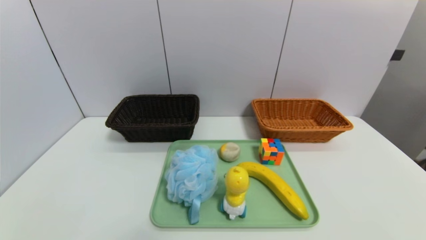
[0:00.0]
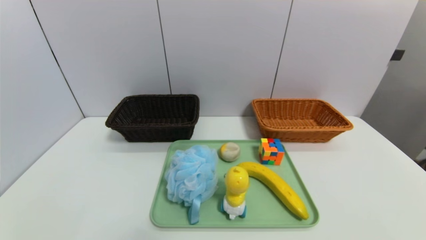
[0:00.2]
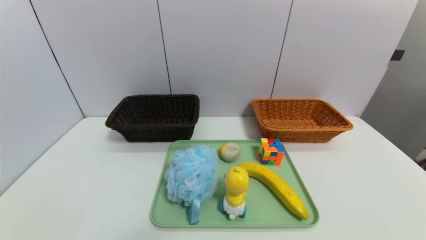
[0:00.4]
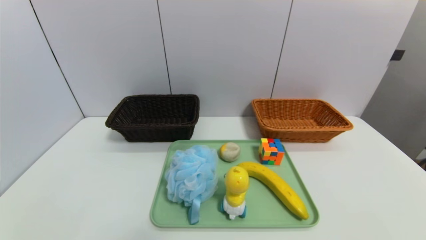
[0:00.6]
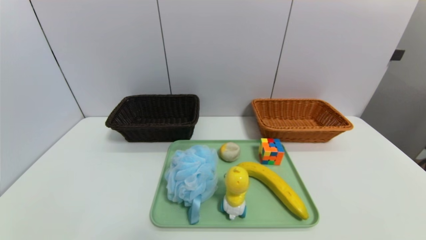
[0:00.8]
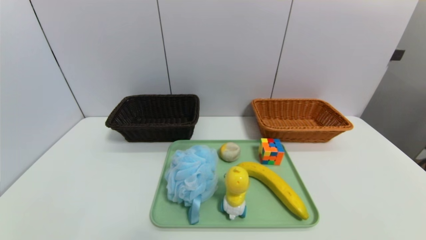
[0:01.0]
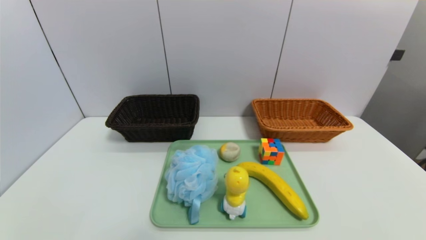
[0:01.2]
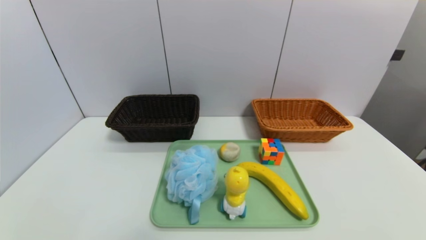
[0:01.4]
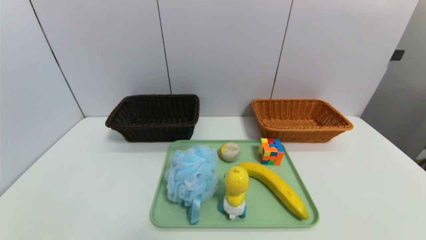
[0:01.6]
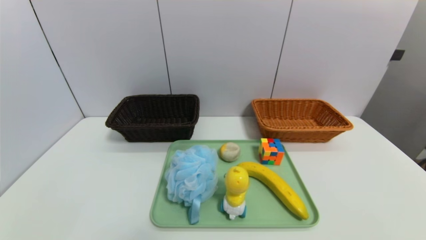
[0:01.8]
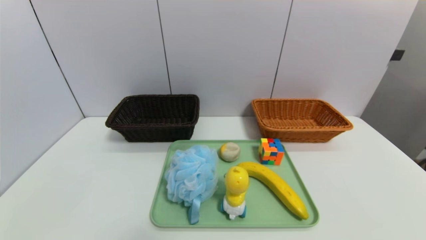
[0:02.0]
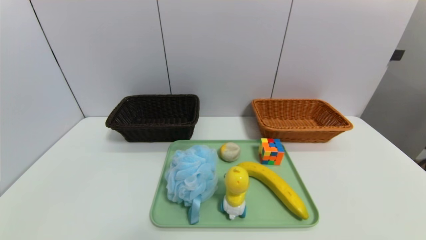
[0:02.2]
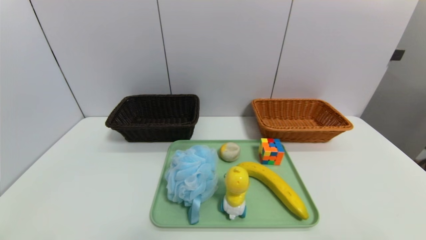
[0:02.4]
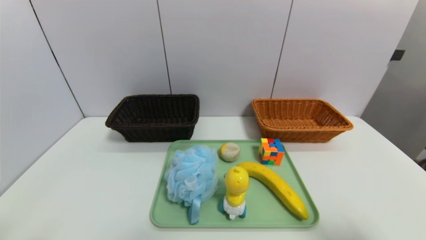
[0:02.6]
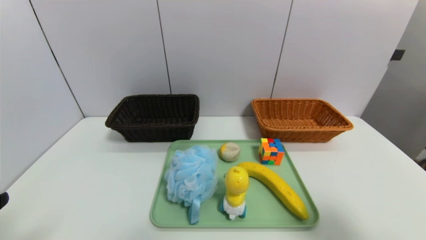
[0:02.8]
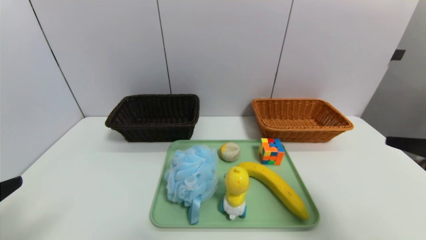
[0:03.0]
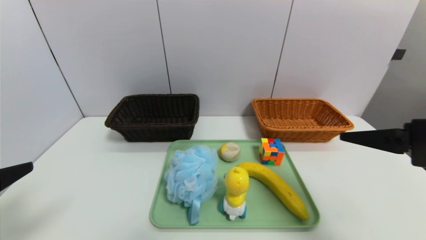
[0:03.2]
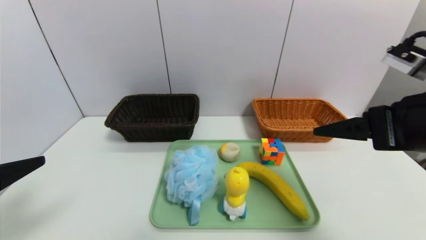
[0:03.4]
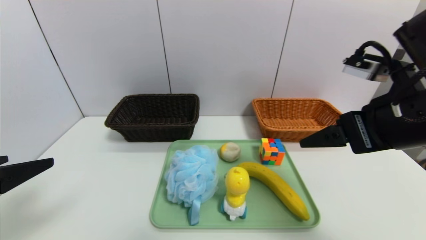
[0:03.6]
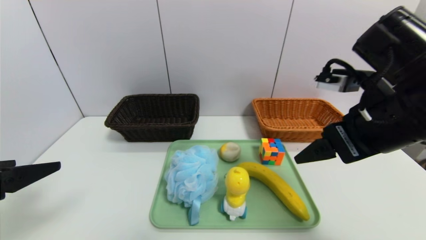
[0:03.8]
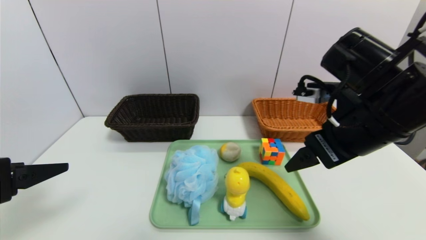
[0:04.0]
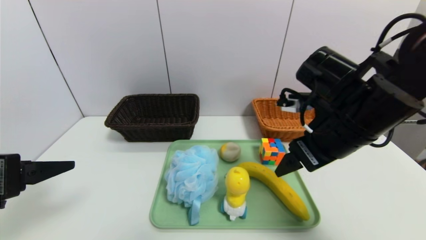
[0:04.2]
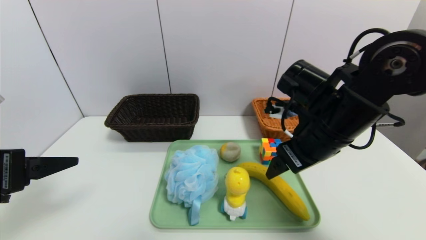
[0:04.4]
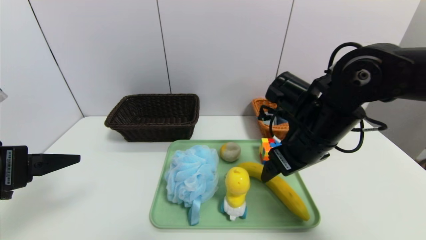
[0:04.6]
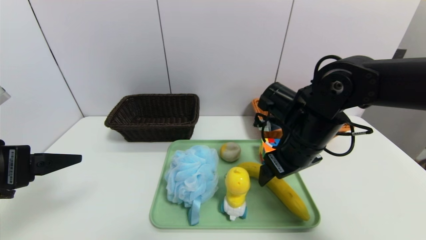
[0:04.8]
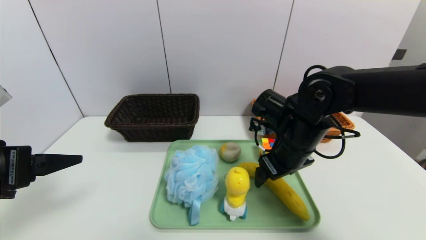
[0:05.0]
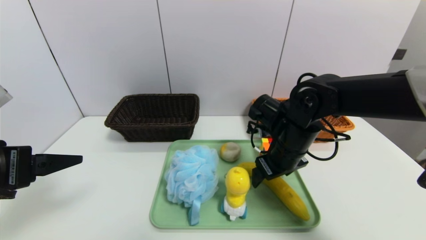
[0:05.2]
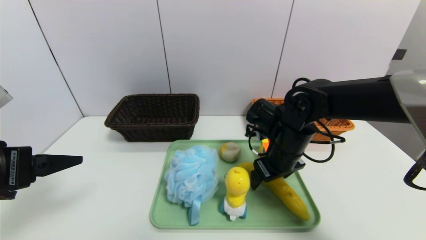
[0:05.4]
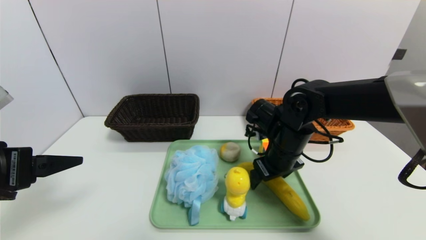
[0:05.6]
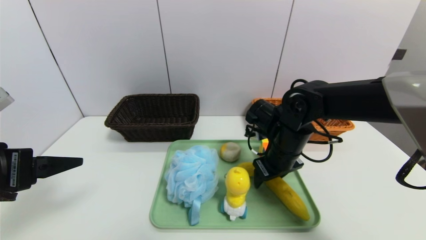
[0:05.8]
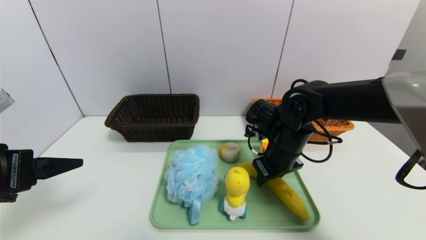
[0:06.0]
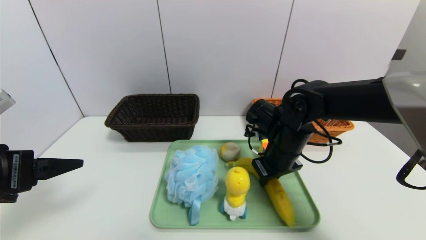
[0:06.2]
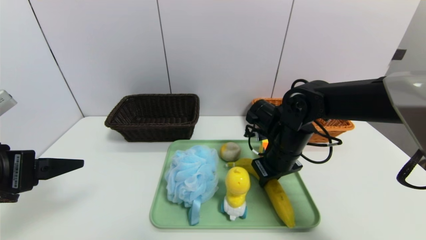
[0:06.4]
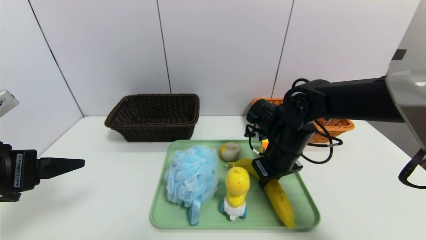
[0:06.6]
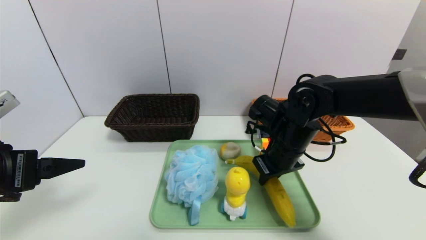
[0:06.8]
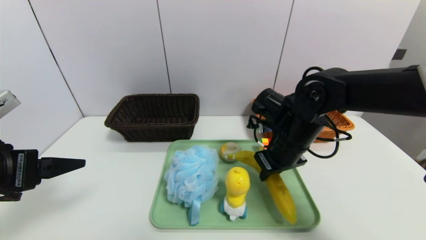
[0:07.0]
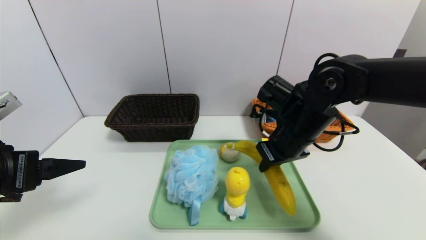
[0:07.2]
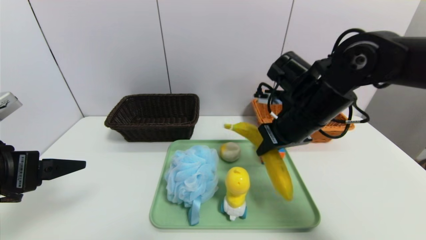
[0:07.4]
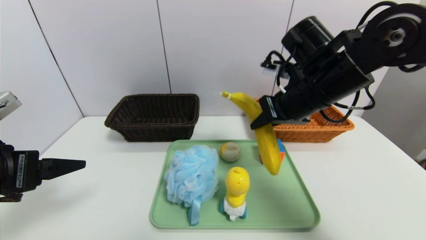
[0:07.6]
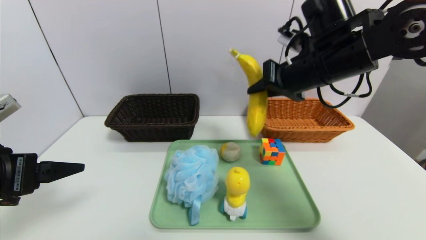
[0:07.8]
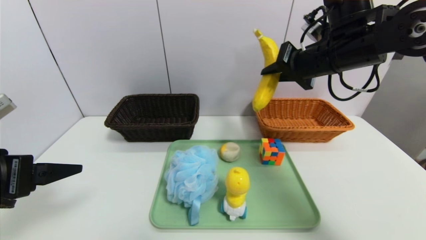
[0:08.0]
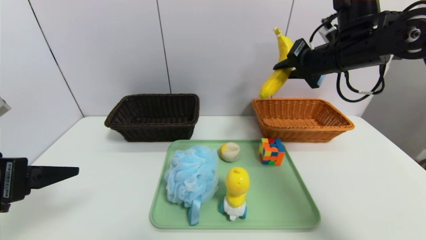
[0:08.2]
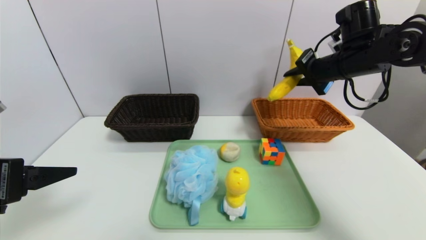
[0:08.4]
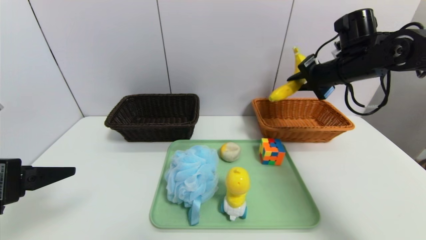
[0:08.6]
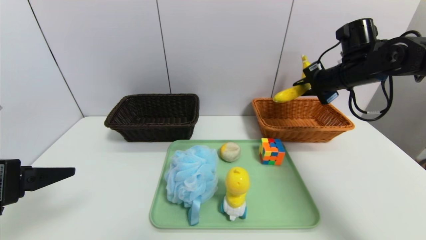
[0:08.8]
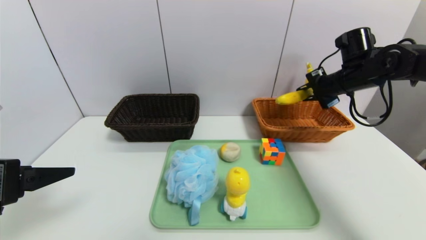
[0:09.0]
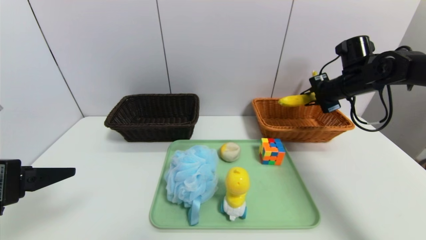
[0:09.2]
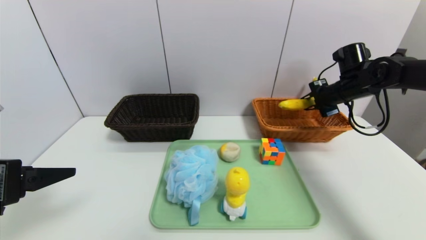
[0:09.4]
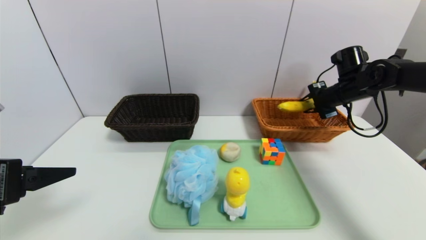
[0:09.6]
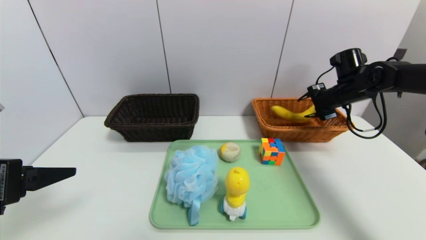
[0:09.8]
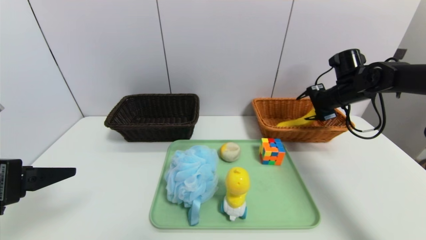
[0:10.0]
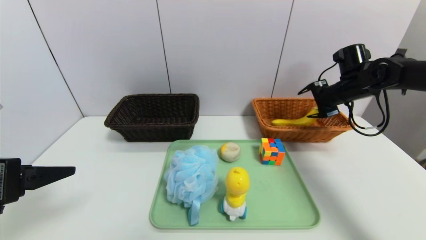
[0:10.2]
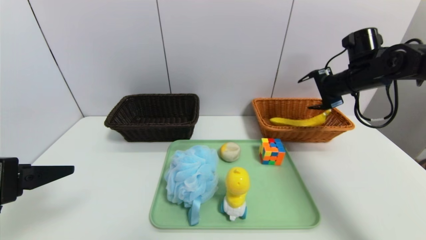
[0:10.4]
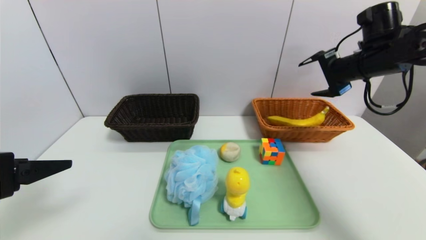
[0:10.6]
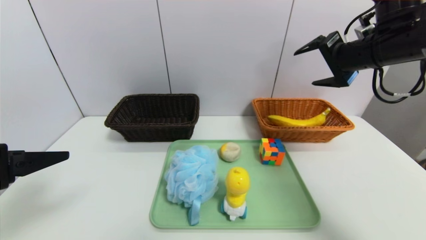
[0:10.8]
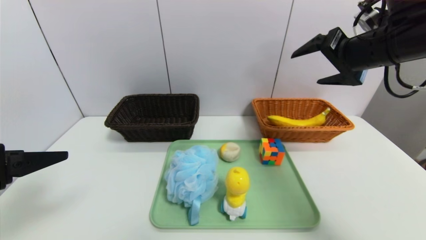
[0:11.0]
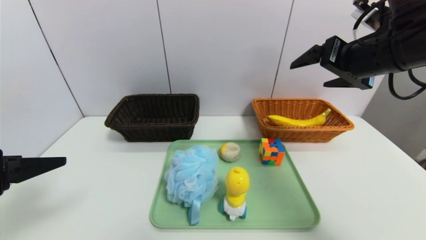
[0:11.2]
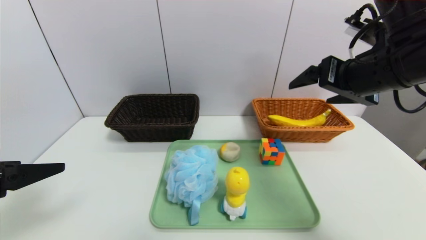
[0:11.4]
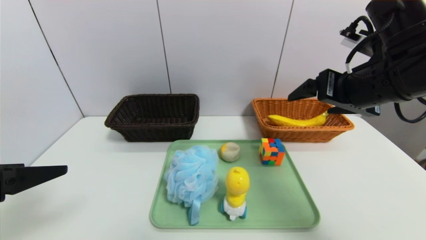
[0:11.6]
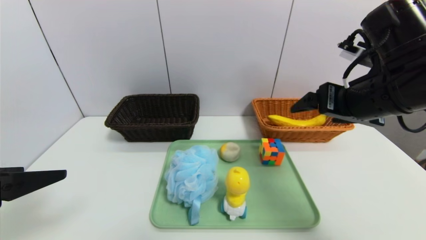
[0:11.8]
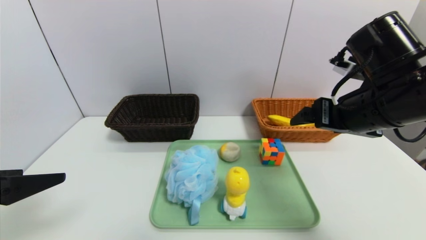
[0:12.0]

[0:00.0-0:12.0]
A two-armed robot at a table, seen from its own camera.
Task of the whole recording: place the food in the right basket with the right gripper, and place the non food items in the left basket with the left gripper.
Step, 0:00.0 to 0:10.2: Grasp the banana and put it in the right basket.
0:01.6 to 0:03.0: Both grippers move upward and forward, approximately 20 cm.
0:03.0 to 0:04.4: The left gripper goes roughly 10 cm forward. Meanwhile the right gripper shifts some 20 cm forward and to the left.
0:04.4 to 0:06.0: The right gripper is displaced downward and forward by some 10 cm, and closes up.
0:06.0 to 0:07.6: The right gripper is displaced upward by roughly 15 cm.
0:07.6 to 0:09.0: The right gripper moves to the right and forward, about 20 cm.
0:09.0 to 0:10.4: The right gripper opens up.
0:10.4 to 0:12.0: The right gripper travels backward and to the left by some 20 cm.

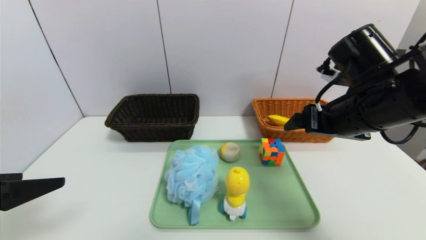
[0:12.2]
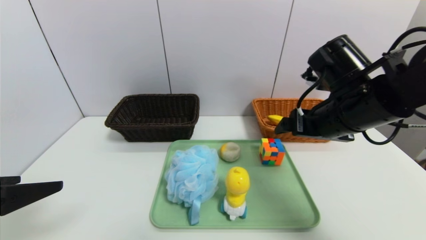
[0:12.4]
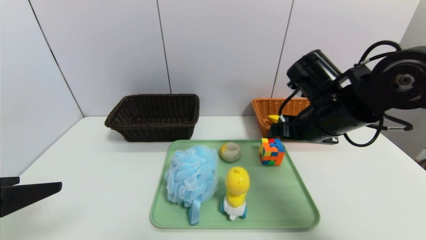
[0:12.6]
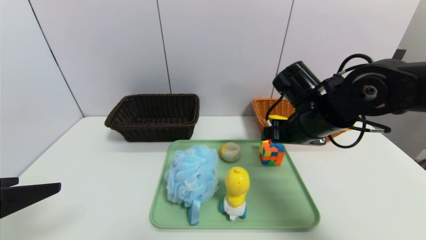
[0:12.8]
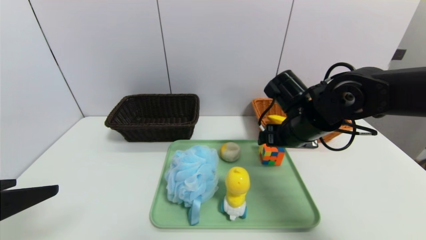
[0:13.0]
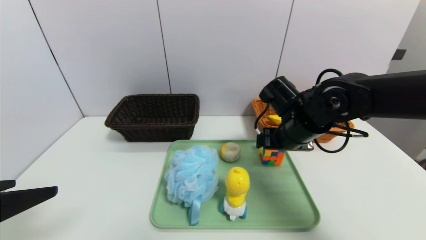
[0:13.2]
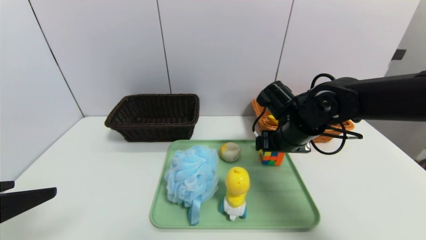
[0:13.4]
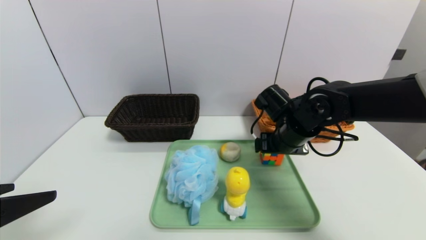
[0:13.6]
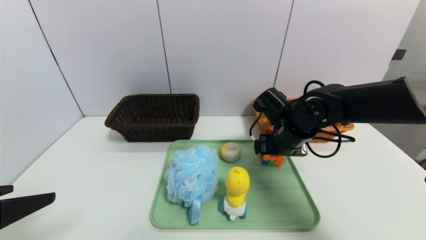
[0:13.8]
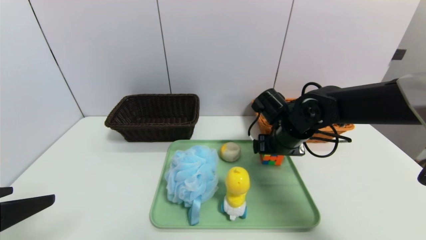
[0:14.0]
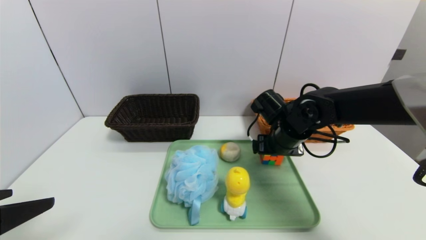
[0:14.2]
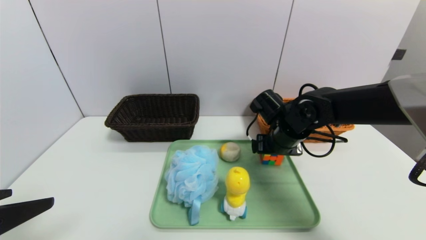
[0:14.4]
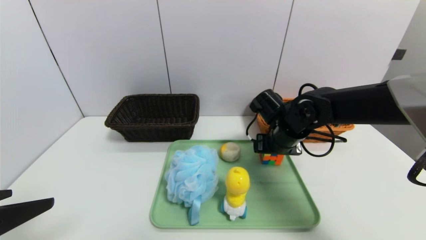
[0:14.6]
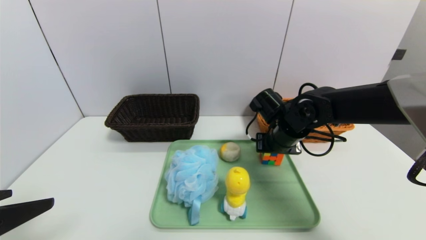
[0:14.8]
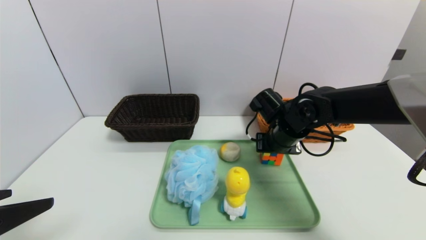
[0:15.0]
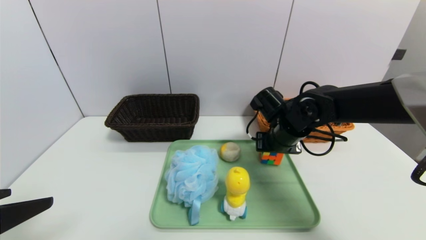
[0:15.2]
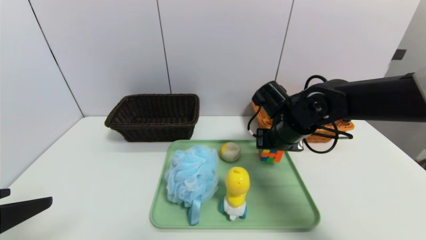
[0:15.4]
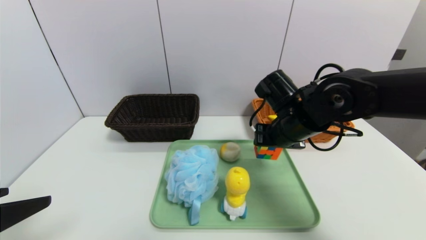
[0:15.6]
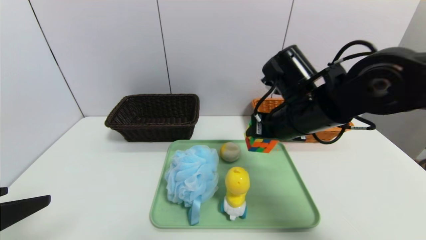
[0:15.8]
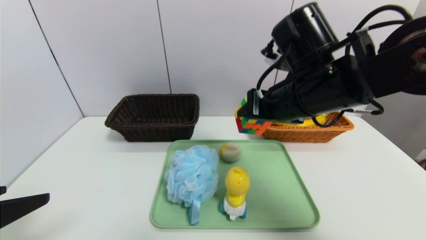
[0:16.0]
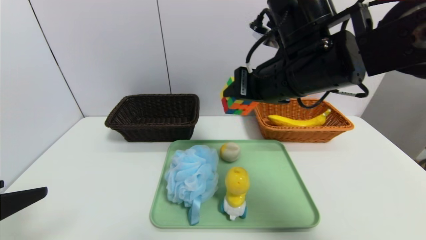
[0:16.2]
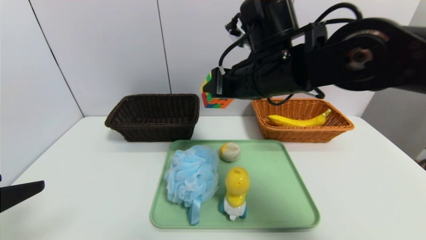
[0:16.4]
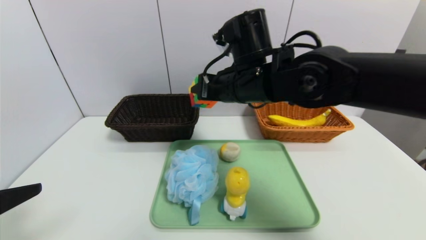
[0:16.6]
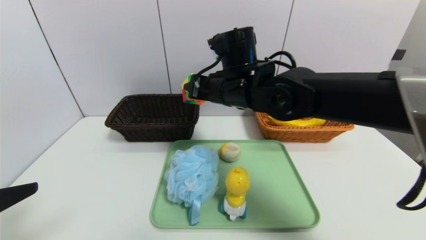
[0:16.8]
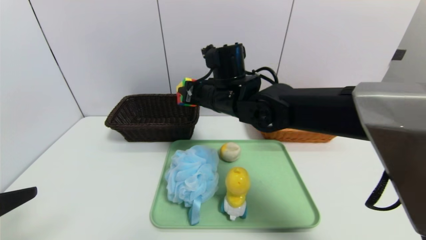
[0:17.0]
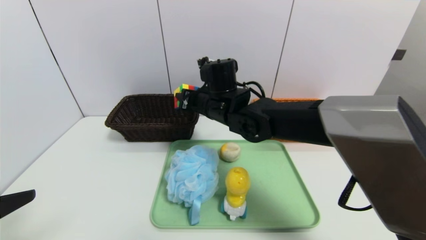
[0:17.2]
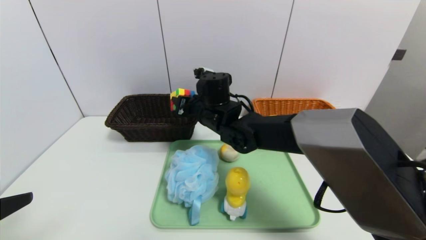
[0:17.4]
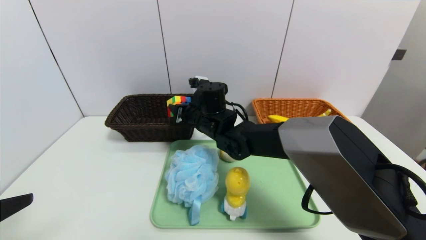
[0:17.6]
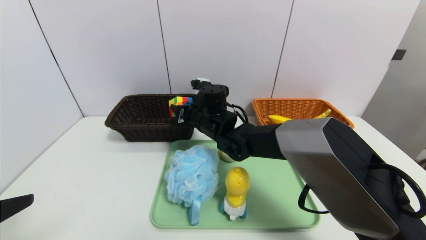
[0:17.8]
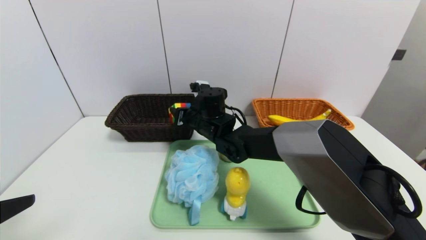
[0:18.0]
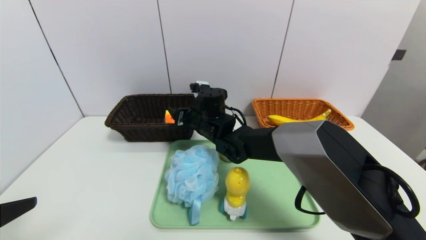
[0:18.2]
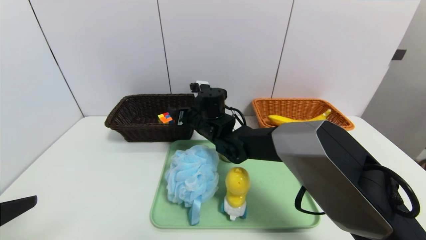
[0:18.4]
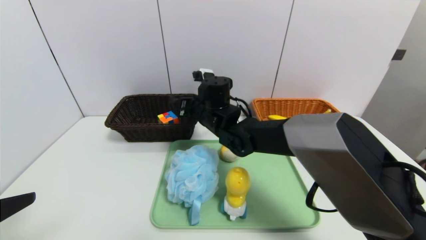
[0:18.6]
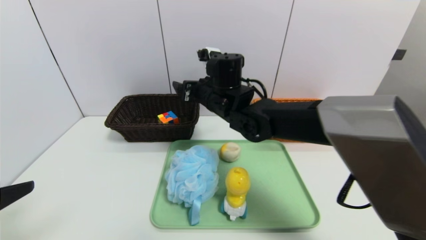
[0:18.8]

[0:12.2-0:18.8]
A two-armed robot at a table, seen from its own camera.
Task of the whole recording: place the food in the right basket with the right gripper, and place the non food items in the left basket with the left gripper.
0:12.2 to 0:13.8: The right gripper travels downward, forward and to the left by approximately 15 cm.
0:13.8 to 0:15.4: The right gripper closes.
0:15.4 to 0:17.2: The right gripper moves to the left, about 15 cm.
0:17.2 to 0:18.8: The right gripper travels downward and back again, about 5 cm each way, and opens its fingers.
